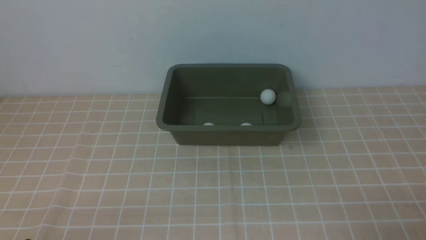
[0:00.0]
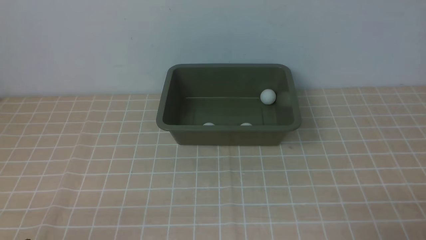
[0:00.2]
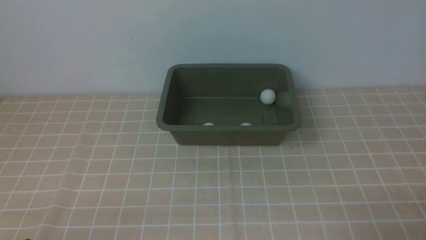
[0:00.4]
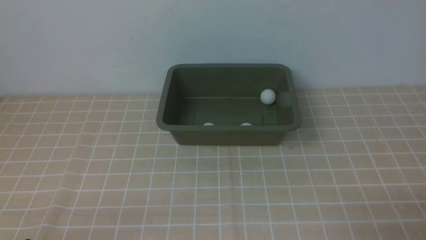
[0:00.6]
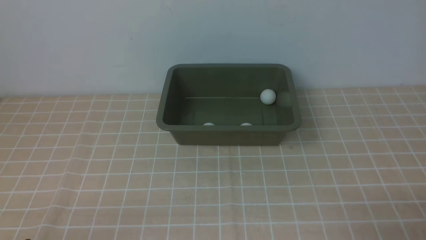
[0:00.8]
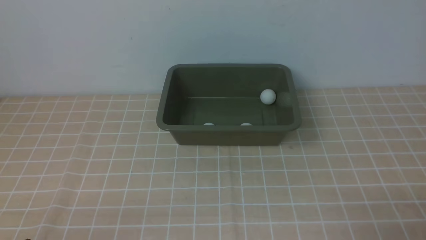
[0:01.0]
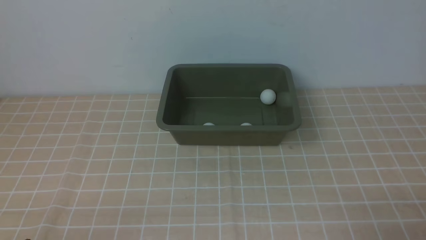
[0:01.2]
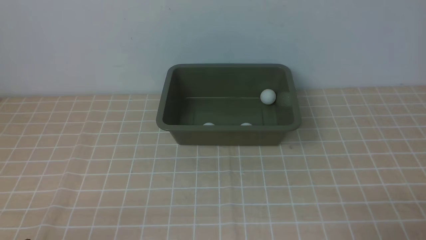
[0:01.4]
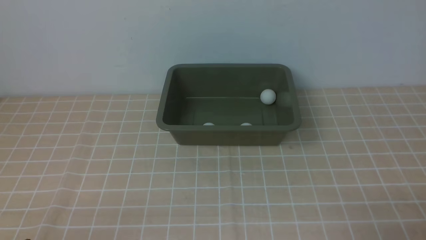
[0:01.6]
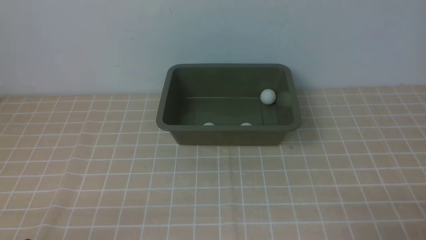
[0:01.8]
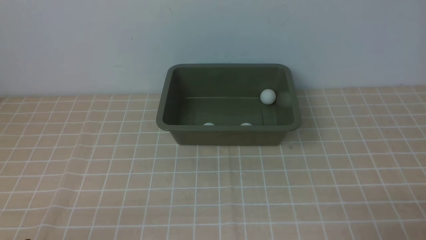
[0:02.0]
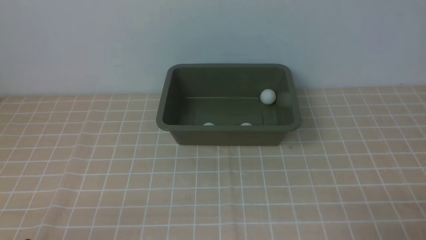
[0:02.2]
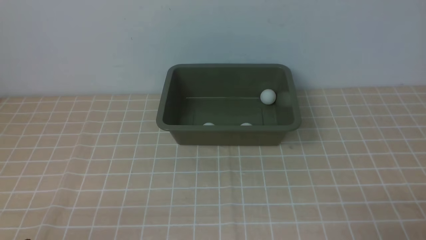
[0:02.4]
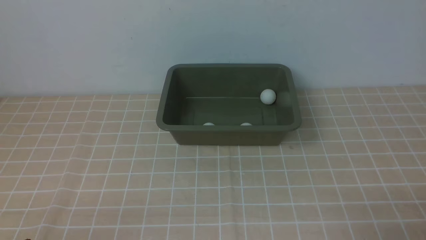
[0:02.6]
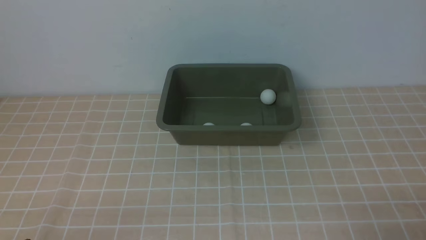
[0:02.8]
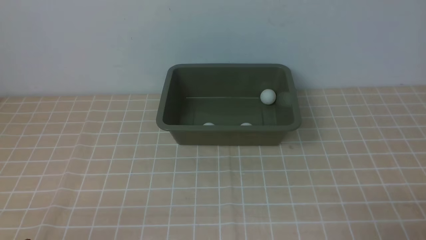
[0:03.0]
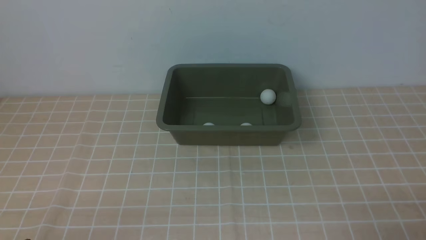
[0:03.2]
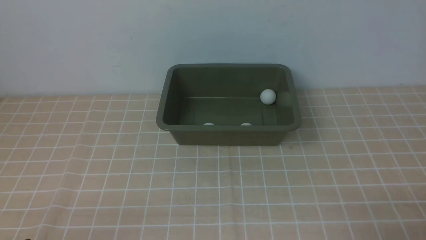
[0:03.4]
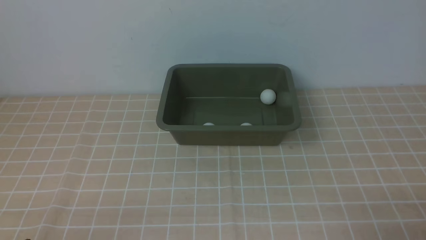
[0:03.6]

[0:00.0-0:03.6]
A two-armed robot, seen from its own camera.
0:01.8 to 0:03.6: Neither gripper changes place.
